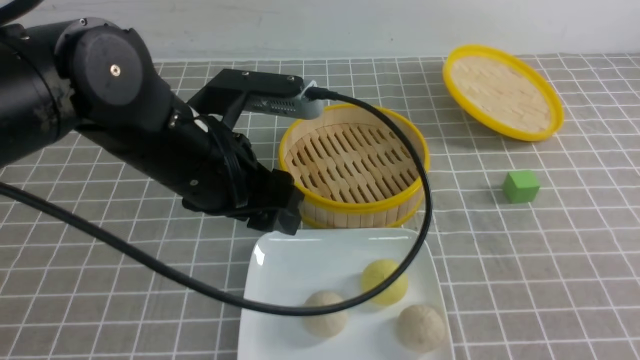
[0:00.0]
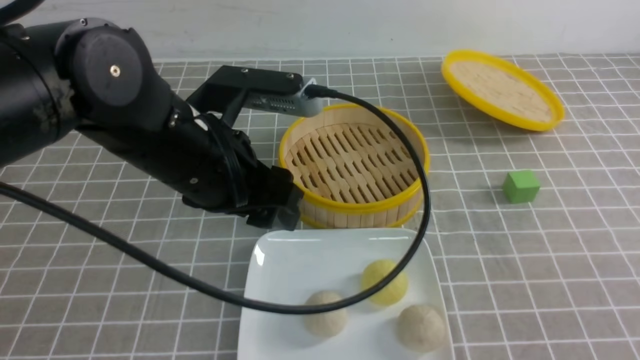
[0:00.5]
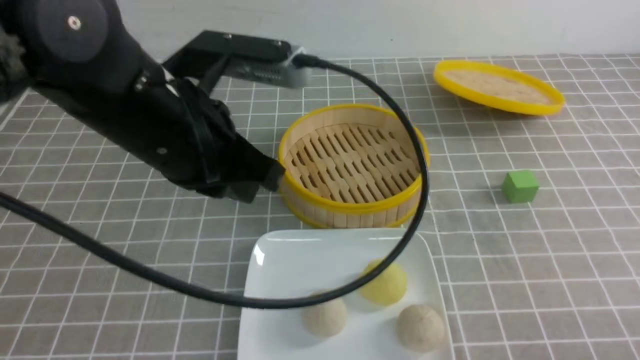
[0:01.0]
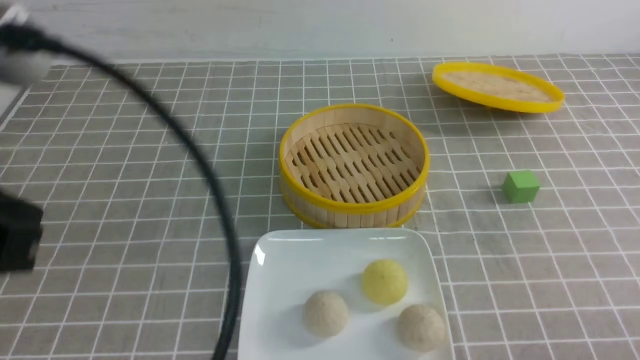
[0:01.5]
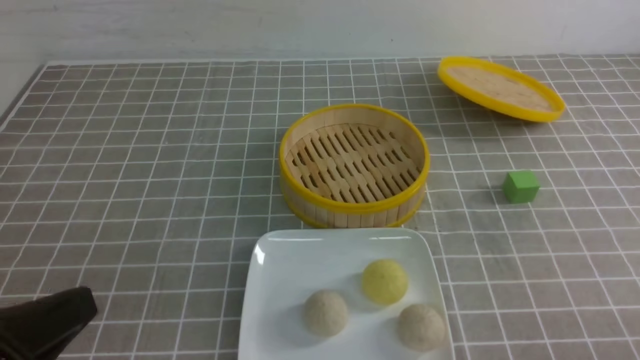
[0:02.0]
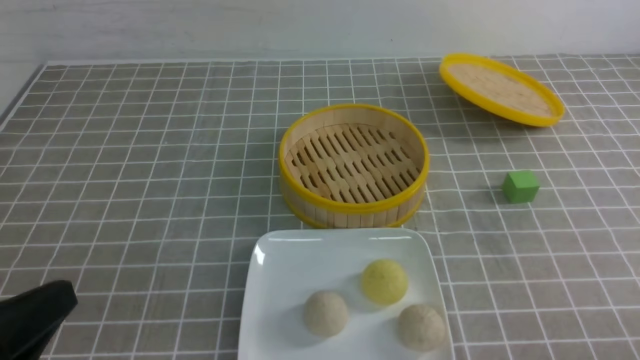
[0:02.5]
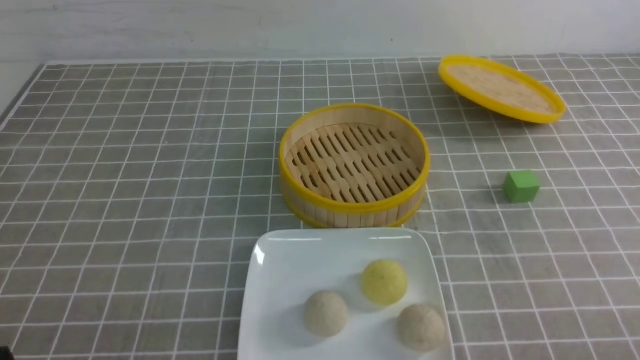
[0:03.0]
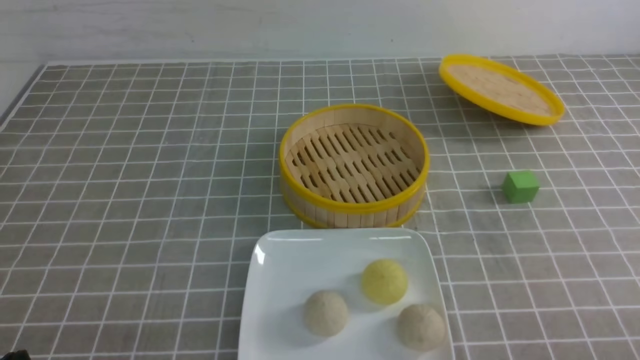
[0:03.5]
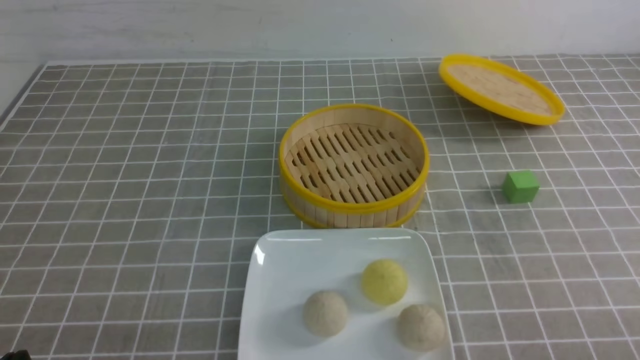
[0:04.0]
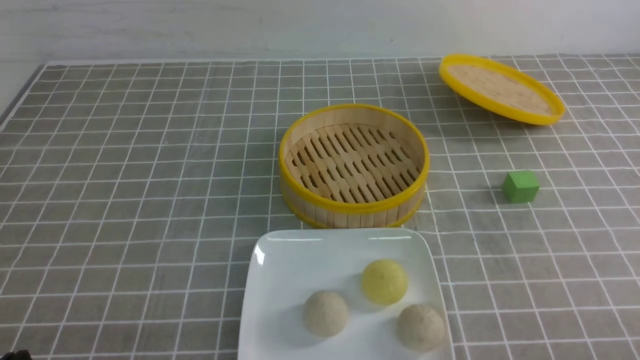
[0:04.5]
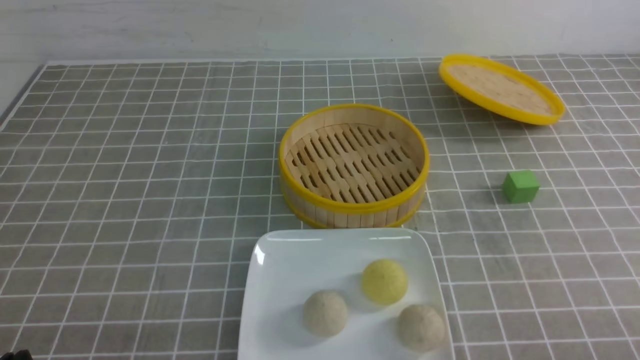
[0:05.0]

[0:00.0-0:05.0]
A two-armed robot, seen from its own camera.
0:00.0 to 0:02.5: The left gripper goes some 25 cm backward and to the left, and closes. Meanwhile the right gripper heads downward, covering some 10 cm.
0:02.5 to 0:05.0: The left gripper moves downward, some 10 cm.
